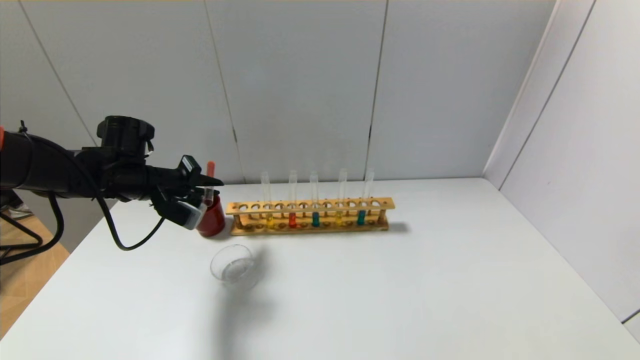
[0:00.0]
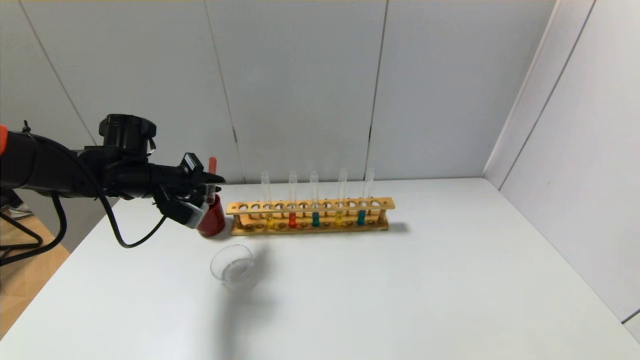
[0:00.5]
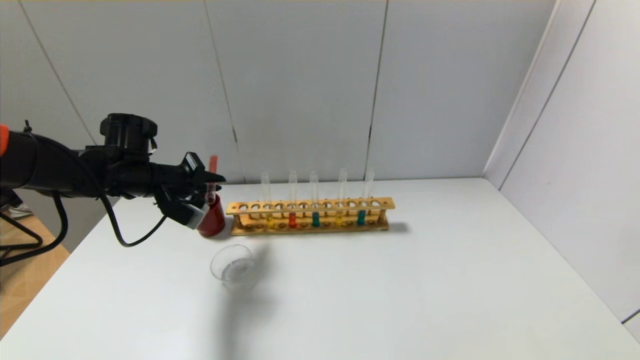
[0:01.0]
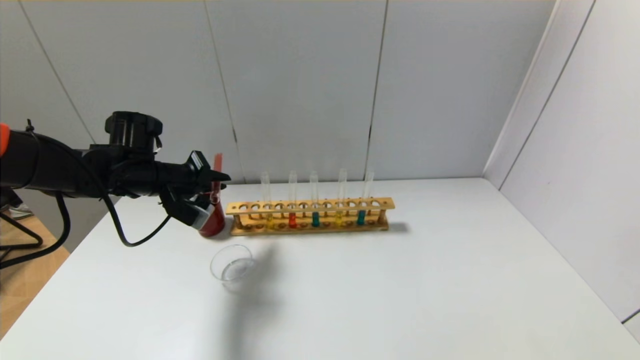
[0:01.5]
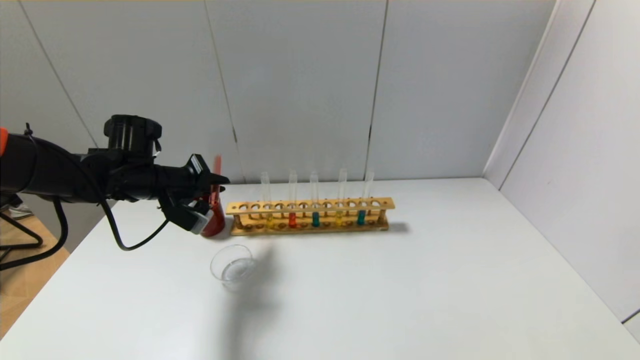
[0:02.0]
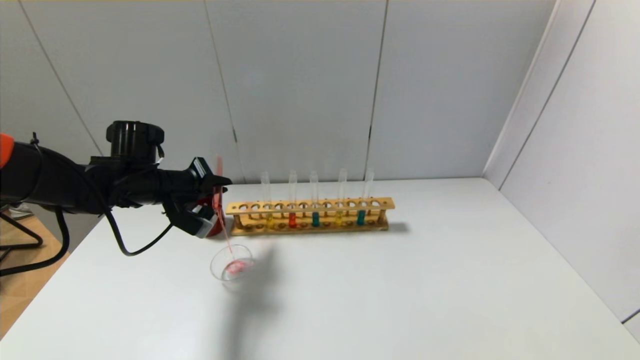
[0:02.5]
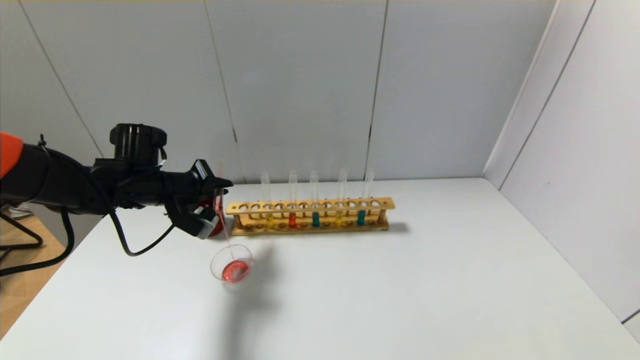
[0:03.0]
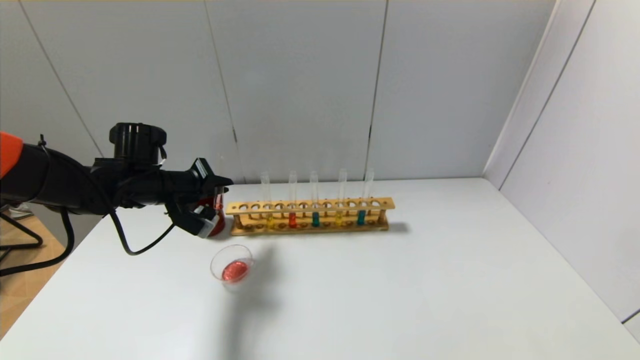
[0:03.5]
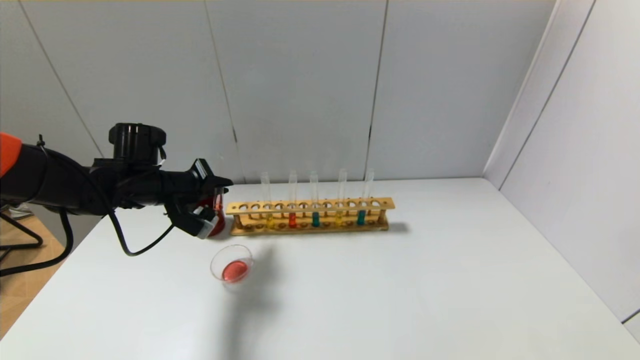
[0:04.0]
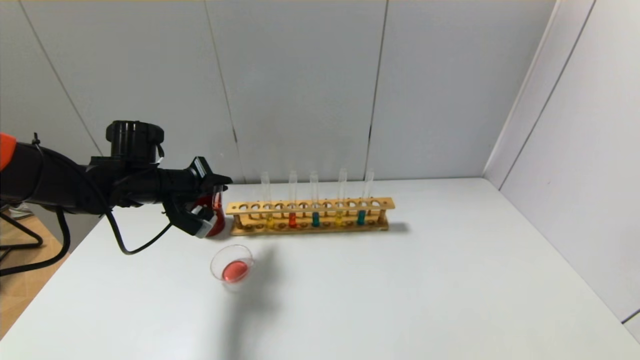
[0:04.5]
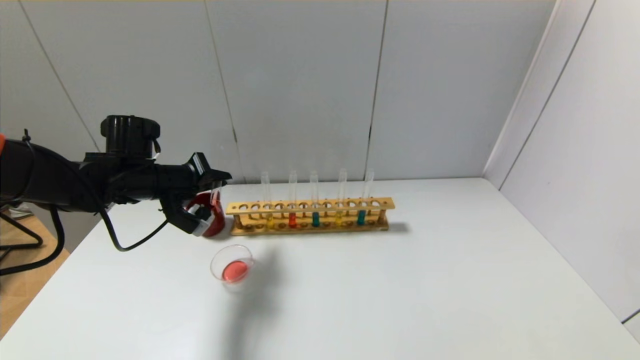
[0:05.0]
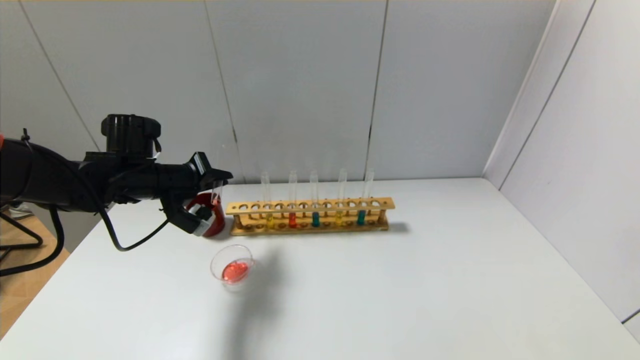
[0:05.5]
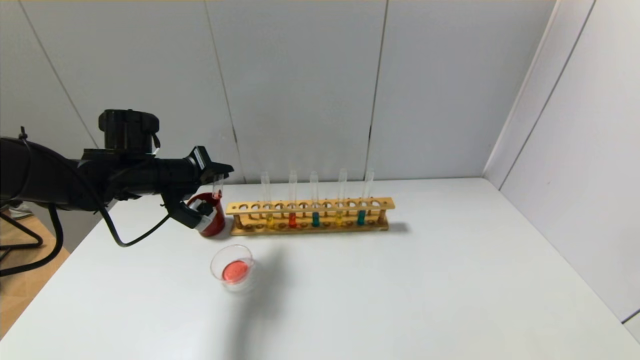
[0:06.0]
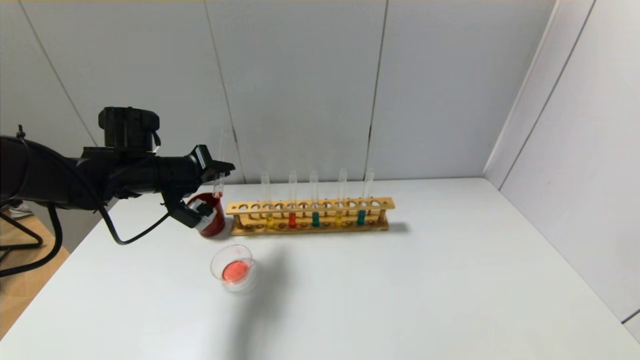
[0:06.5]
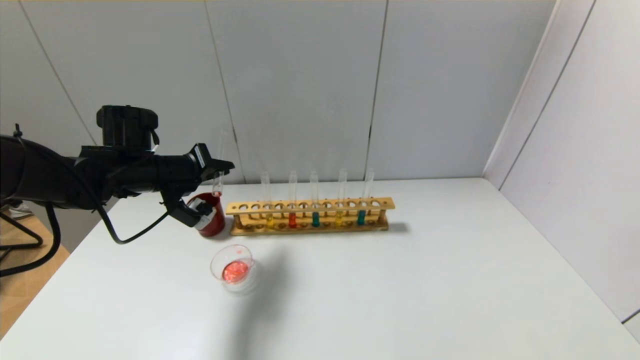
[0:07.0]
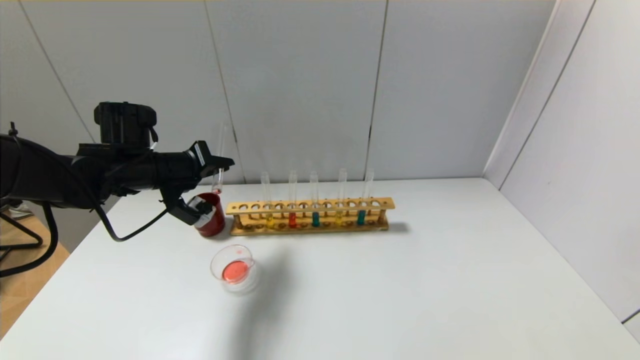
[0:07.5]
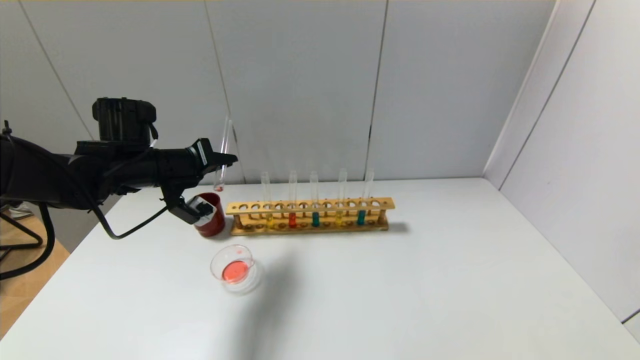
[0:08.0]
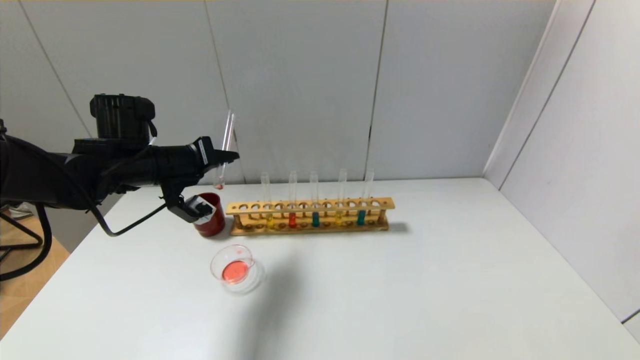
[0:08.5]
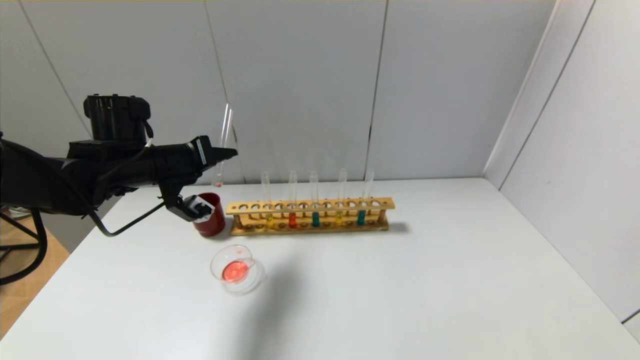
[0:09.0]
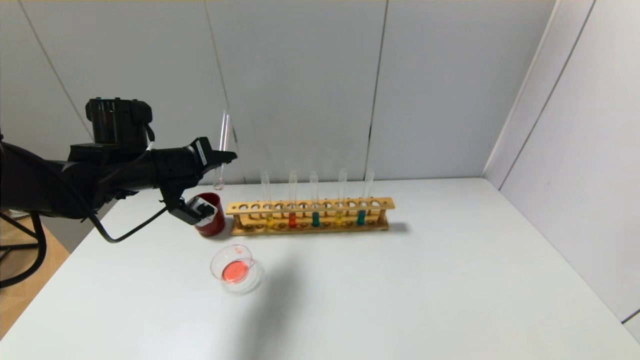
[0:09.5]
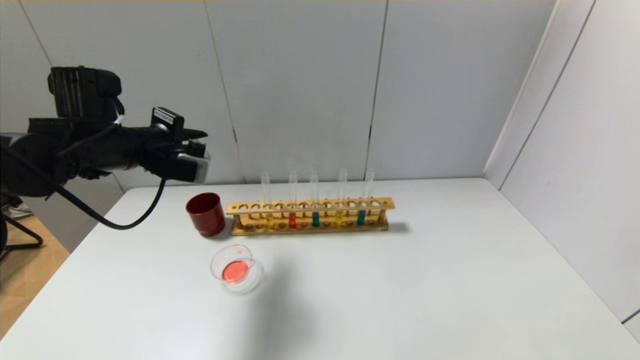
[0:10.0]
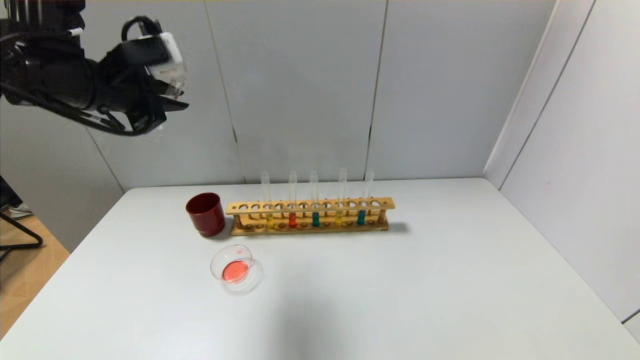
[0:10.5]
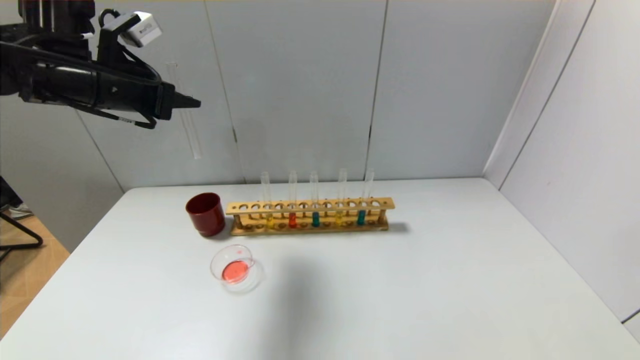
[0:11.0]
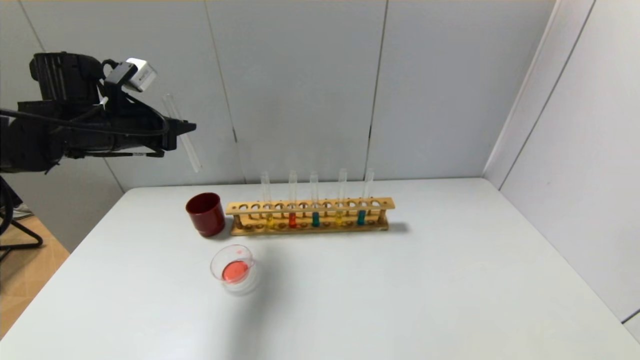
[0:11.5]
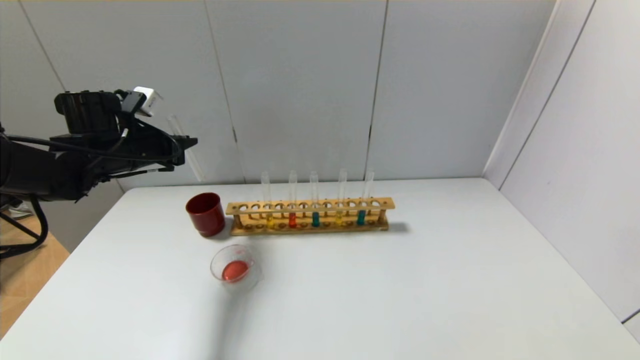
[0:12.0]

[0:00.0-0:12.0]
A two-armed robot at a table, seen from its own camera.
Step, 0:00.0 to 0:09.0: Pour the red reagent into the graduated cylinder with the left gripper.
0:00.0 to 0:02.0: The grippers move only a little.
0:02.0 to 0:04.0: Both grippers stay about where they are.
0:04.0 to 0:06.0: The grippers make only small movements.
0:06.0 to 0:08.0: There are only small adjustments of the grippers.
0:08.0 to 0:10.0: The left gripper moves some 5 cm.
0:10.0 to 0:12.0: The left gripper is displaced forward by some 5 cm, and reaches some 10 cm upward, then returns.

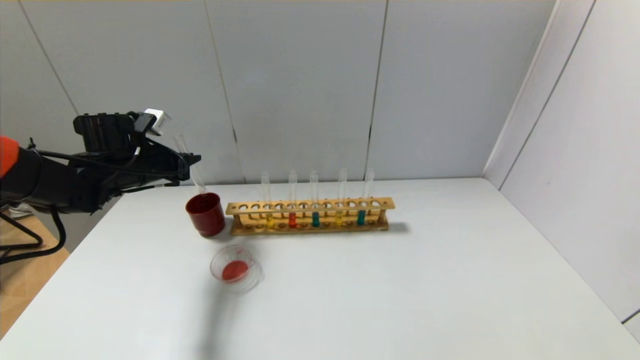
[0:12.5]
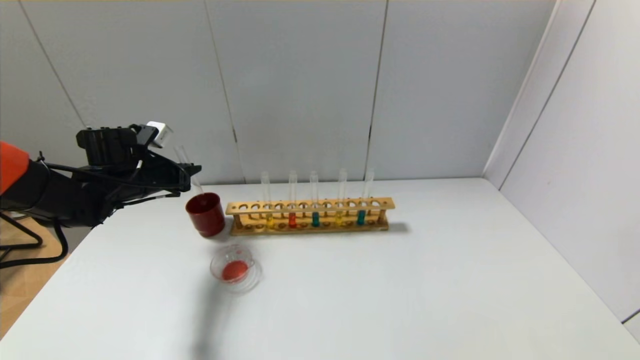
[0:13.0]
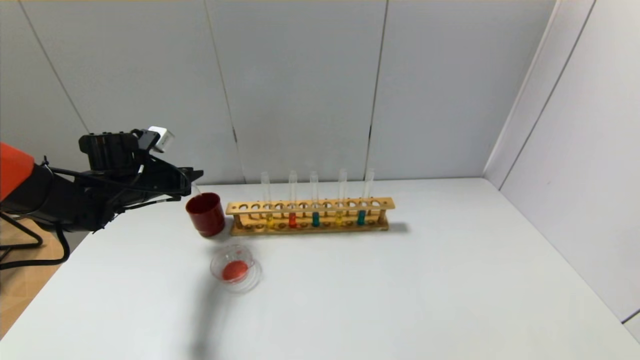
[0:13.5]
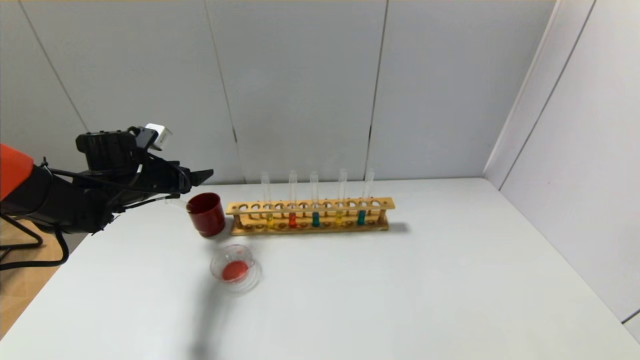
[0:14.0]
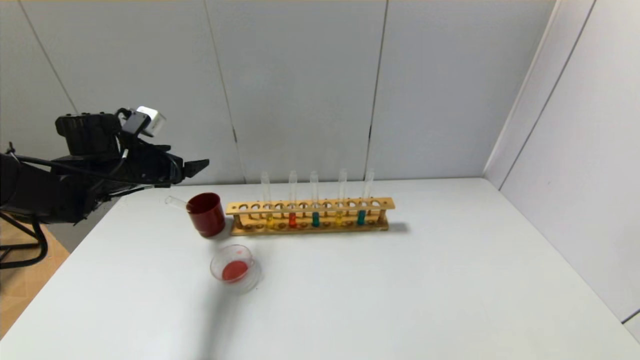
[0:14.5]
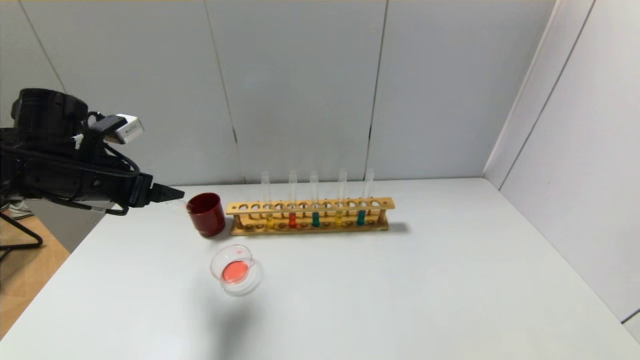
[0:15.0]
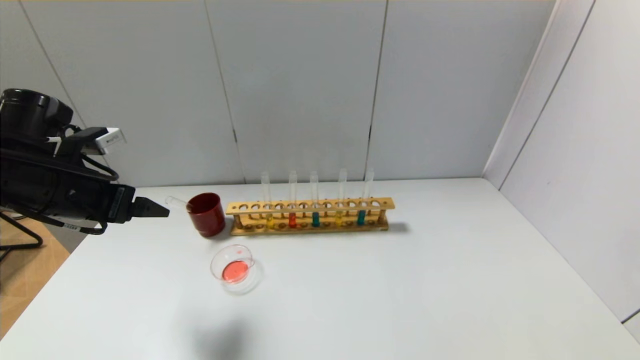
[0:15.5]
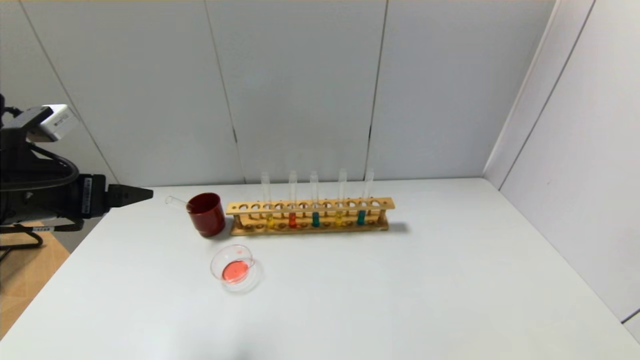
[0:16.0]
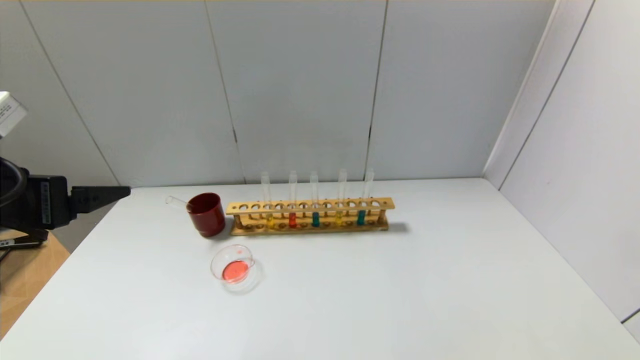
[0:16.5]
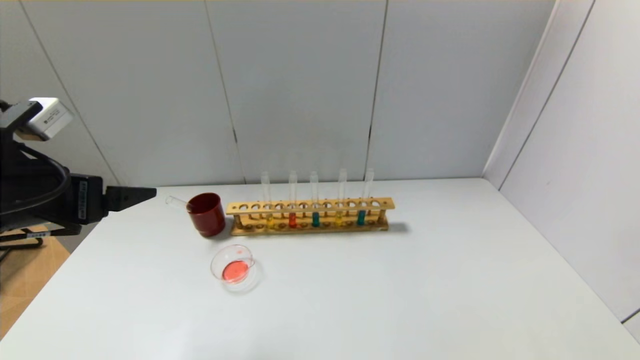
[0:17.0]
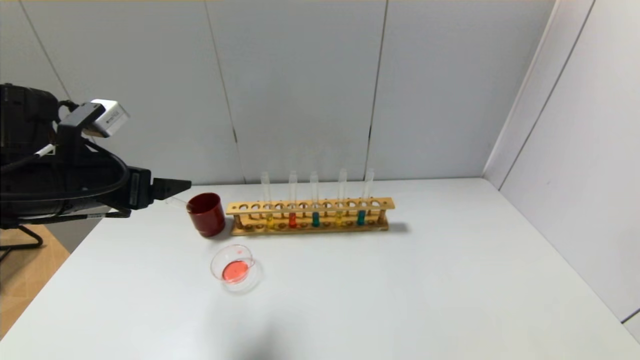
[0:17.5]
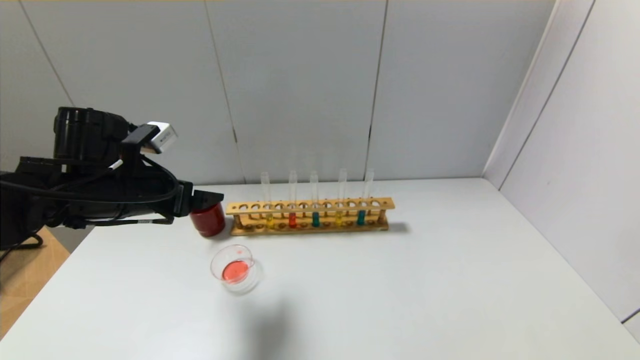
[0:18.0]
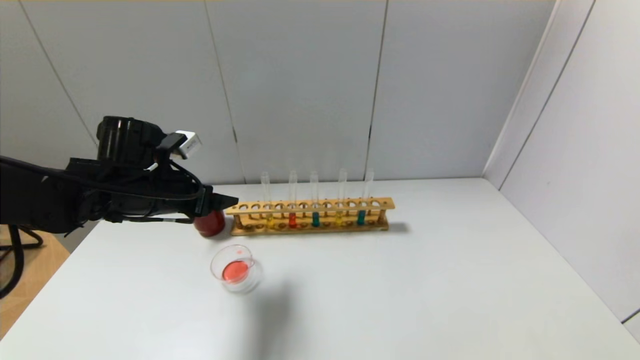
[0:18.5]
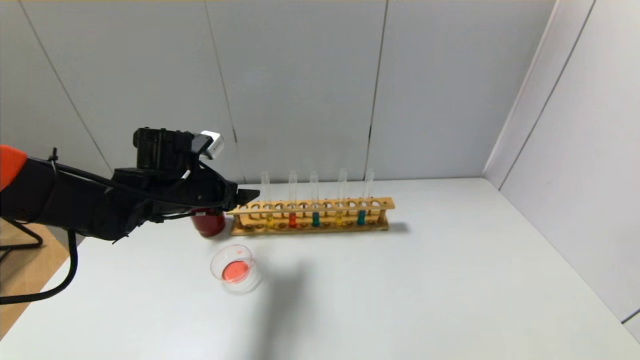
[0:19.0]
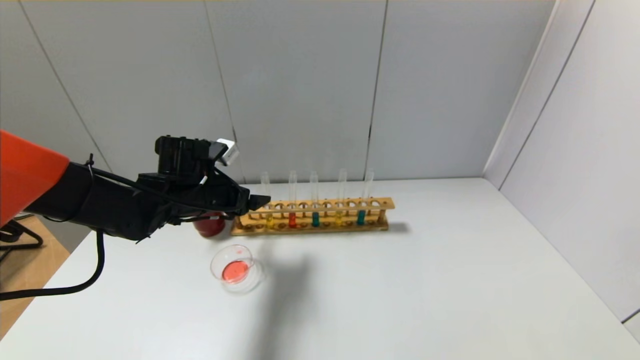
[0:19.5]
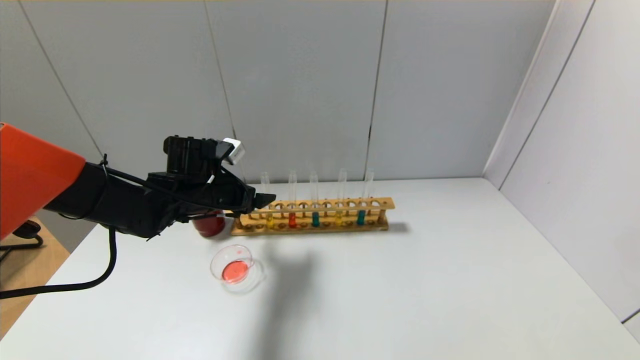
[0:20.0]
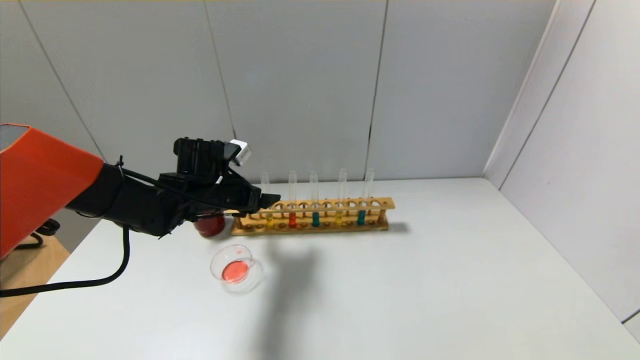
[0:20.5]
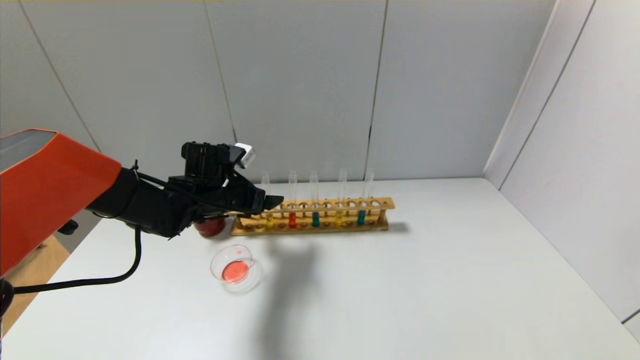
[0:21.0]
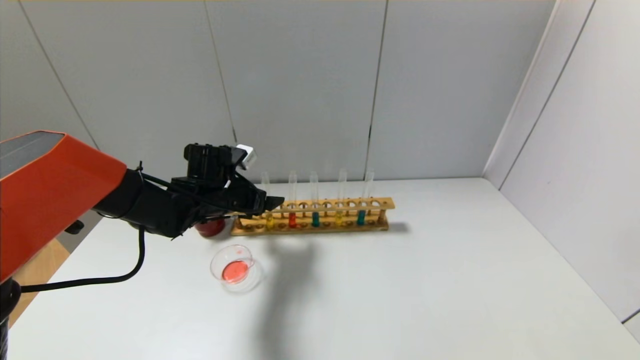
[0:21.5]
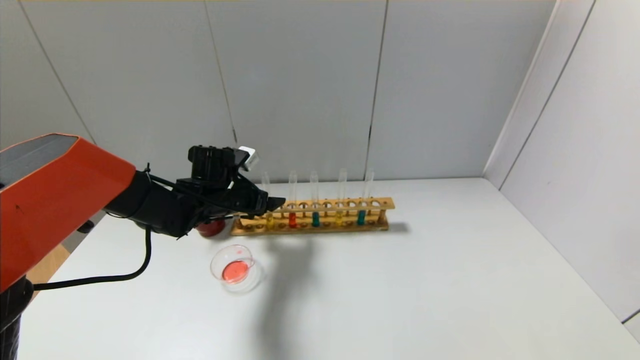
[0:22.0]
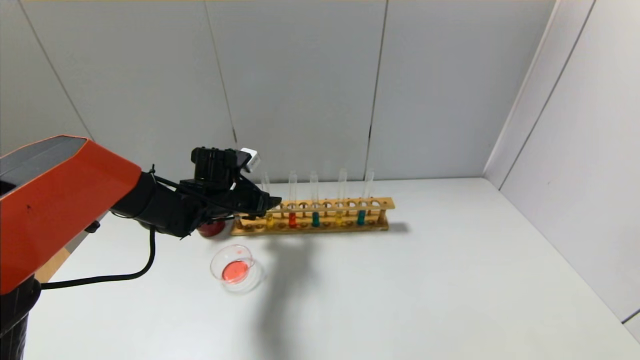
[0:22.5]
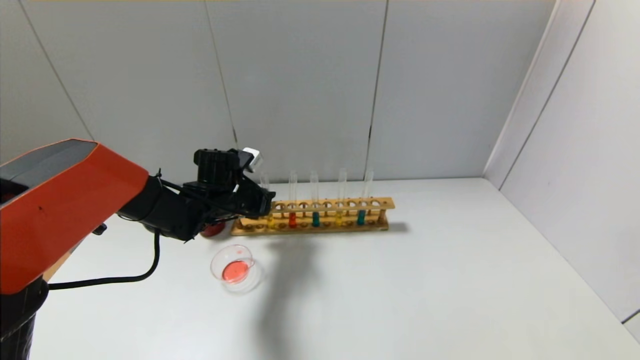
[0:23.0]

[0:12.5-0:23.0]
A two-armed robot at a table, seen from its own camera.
0:12.5 to 0:14.5: The left gripper opens.
0:14.5 to 0:16.5: The left gripper travels backward and upward by roughly 20 cm.
0:16.5 to 0:19.0: The left gripper travels forward, downward and to the right by some 20 cm.
0:19.0 to 0:21.0: The left gripper changes place by about 5 cm.
0:21.0 to 0:23.0: The left gripper closes.
